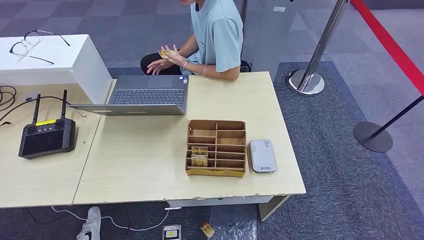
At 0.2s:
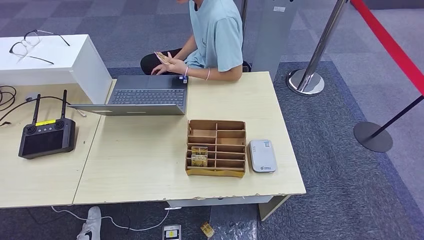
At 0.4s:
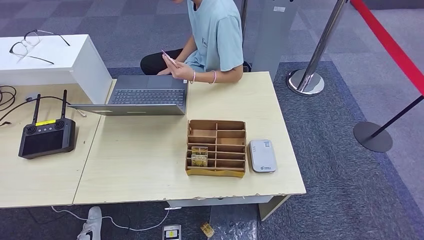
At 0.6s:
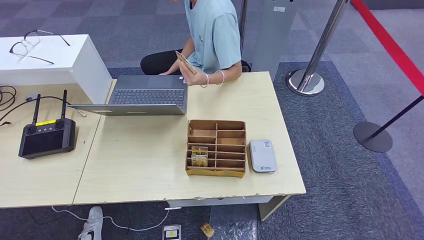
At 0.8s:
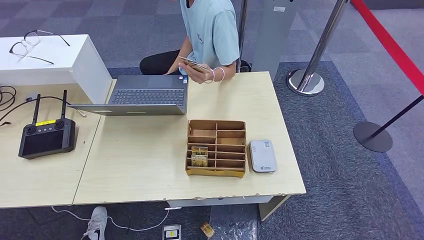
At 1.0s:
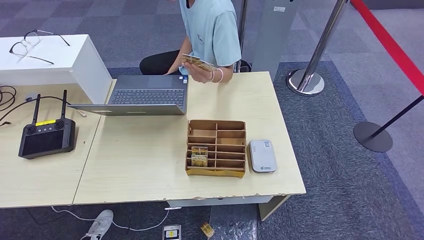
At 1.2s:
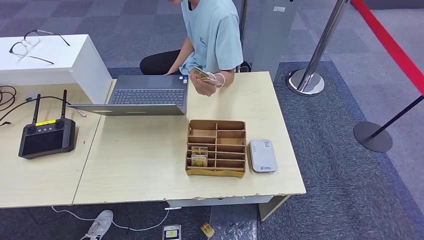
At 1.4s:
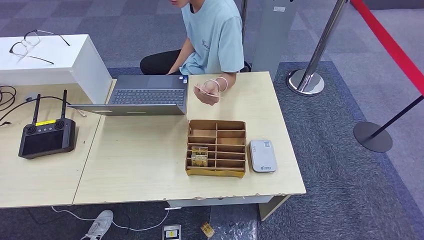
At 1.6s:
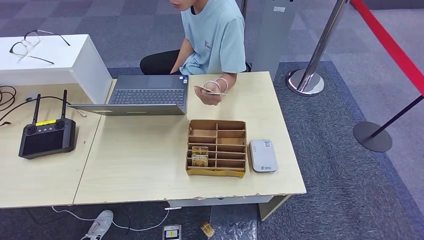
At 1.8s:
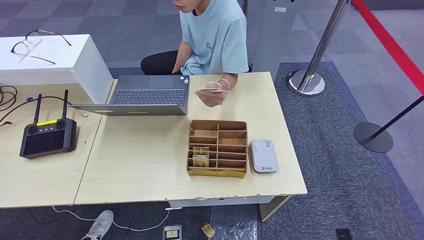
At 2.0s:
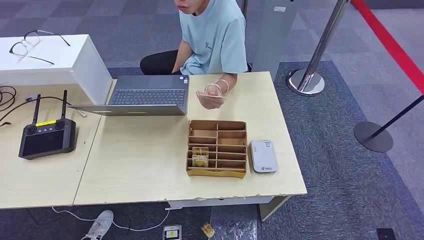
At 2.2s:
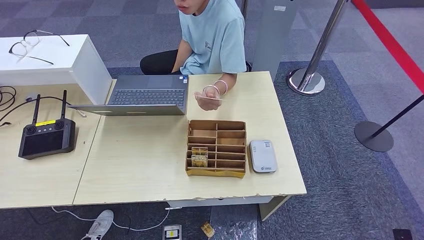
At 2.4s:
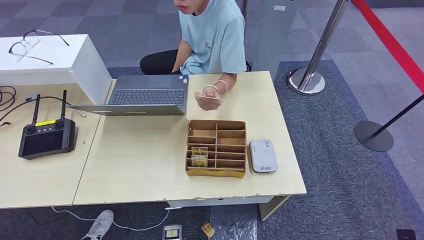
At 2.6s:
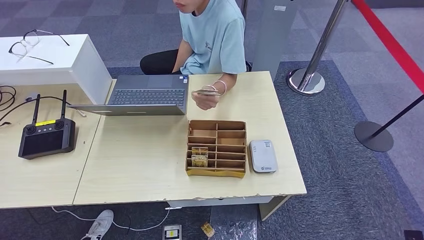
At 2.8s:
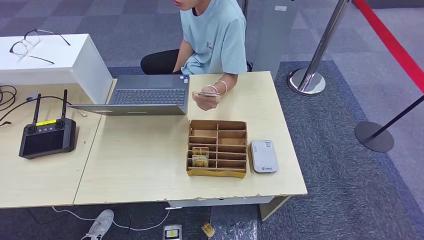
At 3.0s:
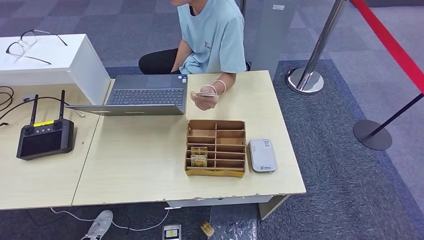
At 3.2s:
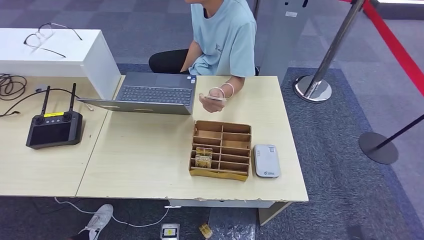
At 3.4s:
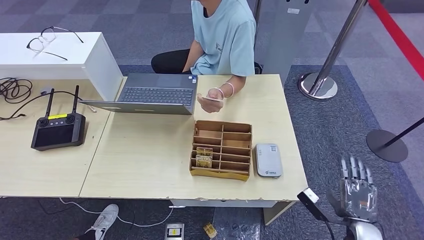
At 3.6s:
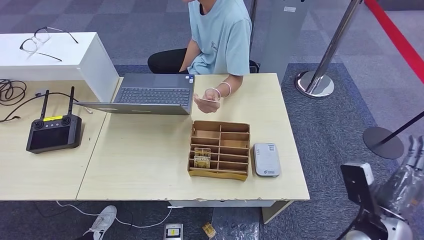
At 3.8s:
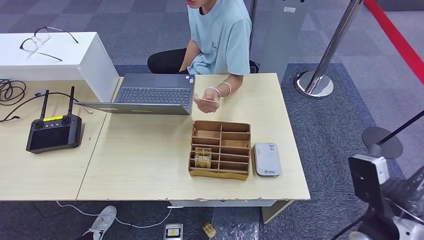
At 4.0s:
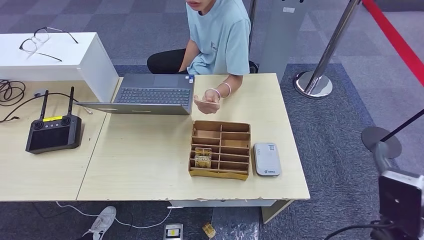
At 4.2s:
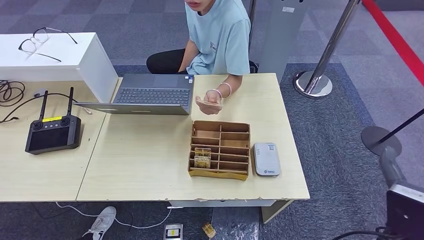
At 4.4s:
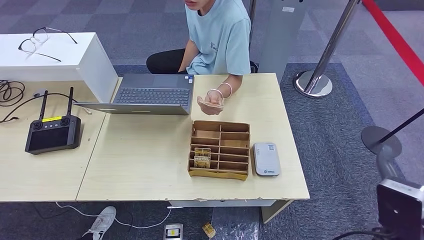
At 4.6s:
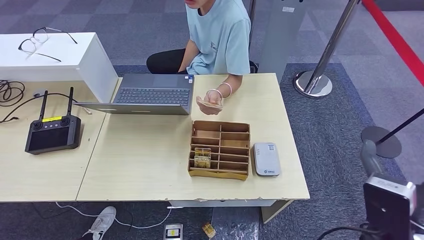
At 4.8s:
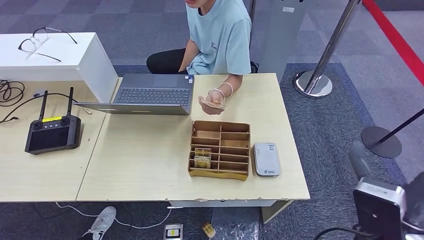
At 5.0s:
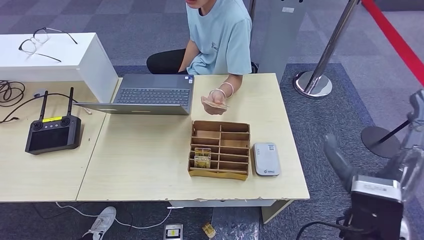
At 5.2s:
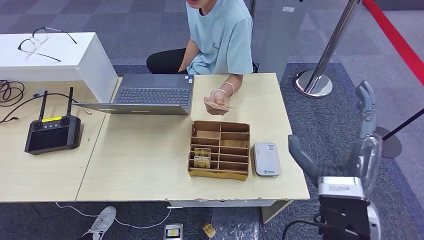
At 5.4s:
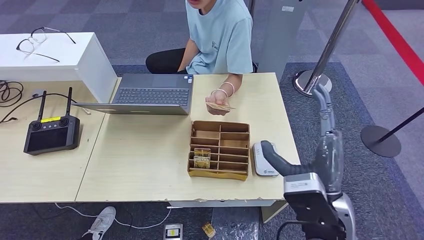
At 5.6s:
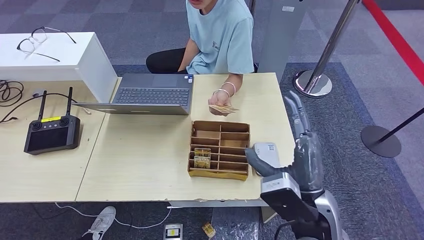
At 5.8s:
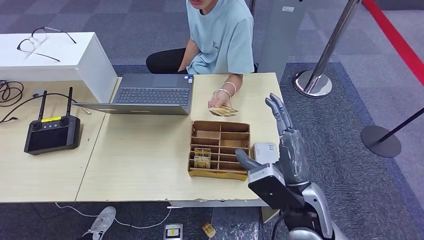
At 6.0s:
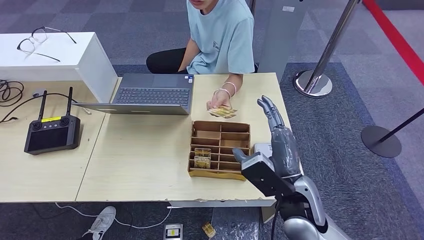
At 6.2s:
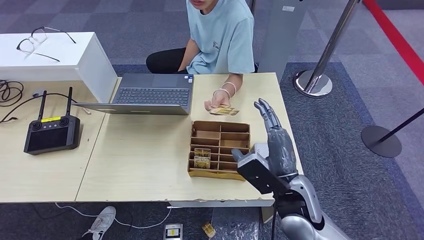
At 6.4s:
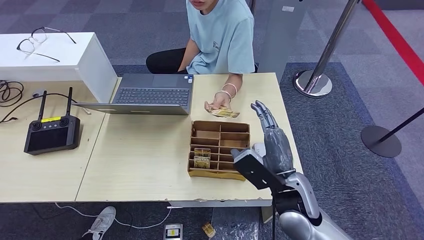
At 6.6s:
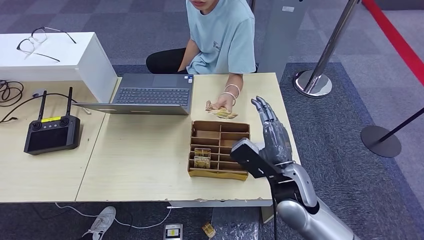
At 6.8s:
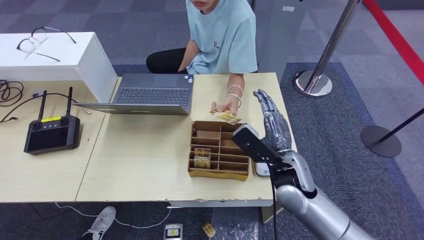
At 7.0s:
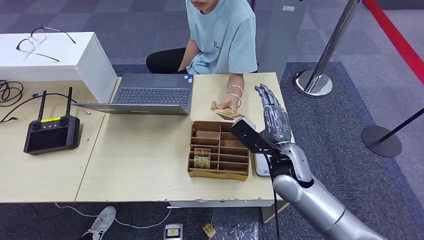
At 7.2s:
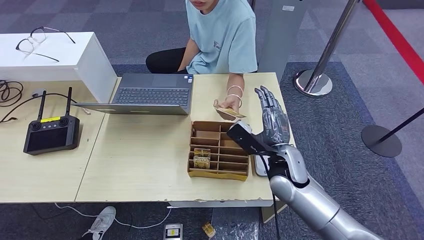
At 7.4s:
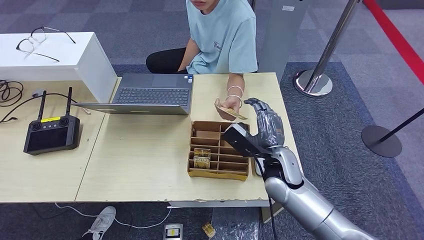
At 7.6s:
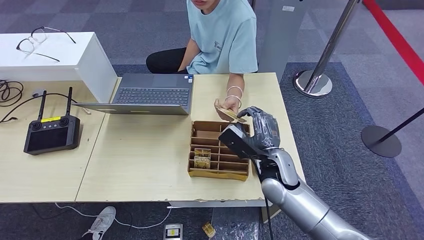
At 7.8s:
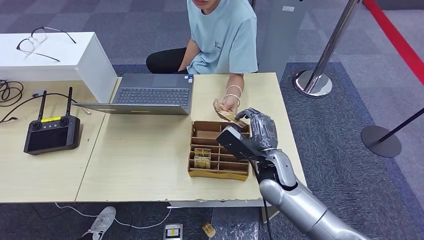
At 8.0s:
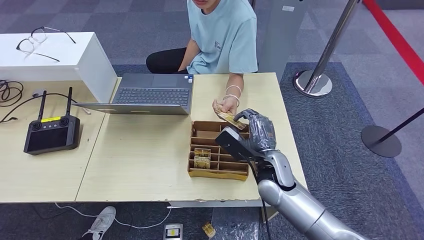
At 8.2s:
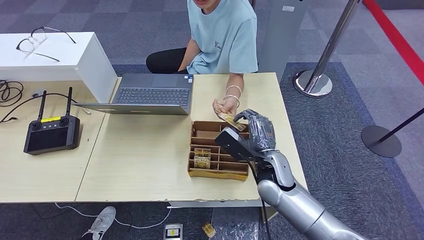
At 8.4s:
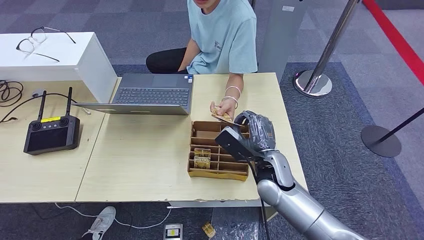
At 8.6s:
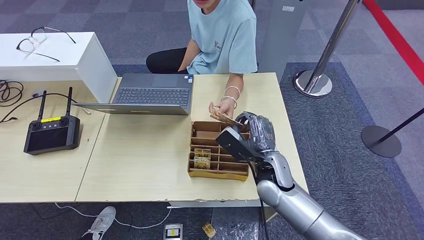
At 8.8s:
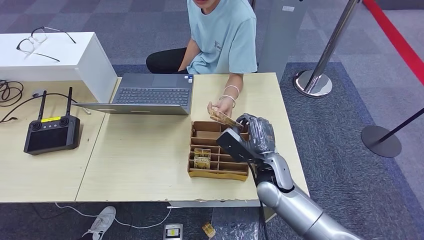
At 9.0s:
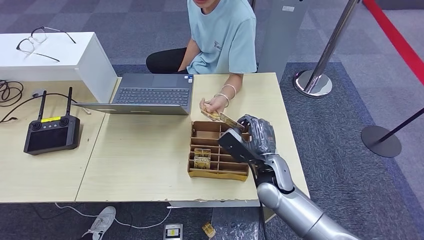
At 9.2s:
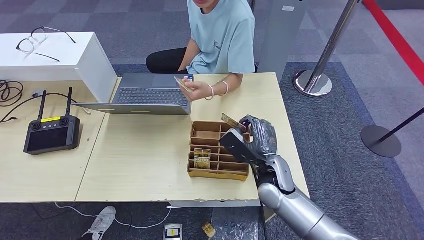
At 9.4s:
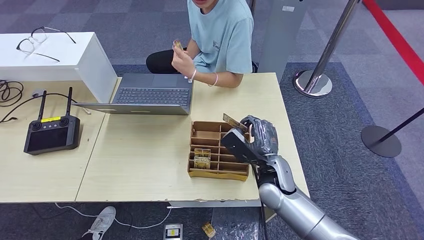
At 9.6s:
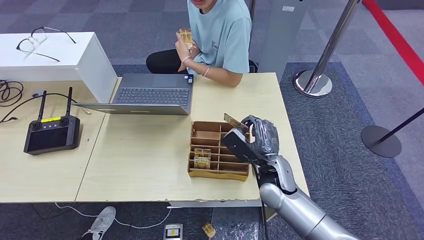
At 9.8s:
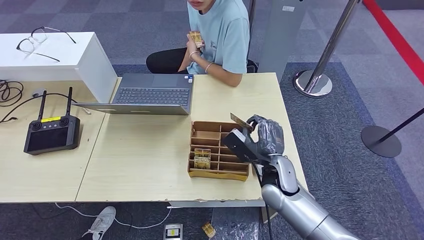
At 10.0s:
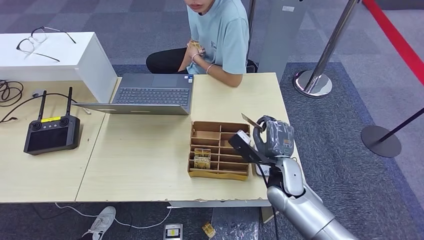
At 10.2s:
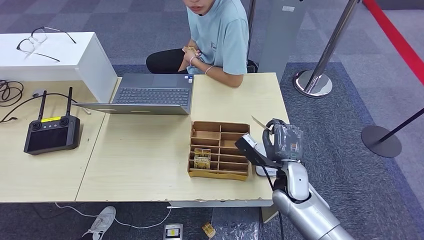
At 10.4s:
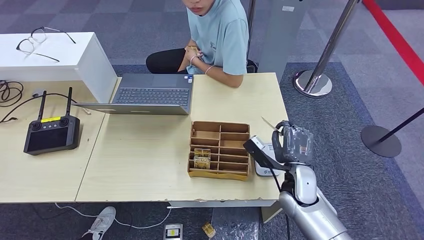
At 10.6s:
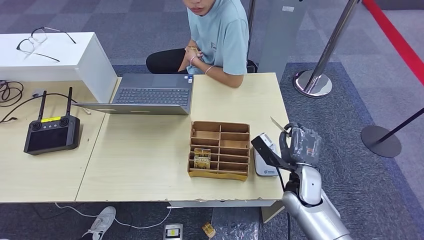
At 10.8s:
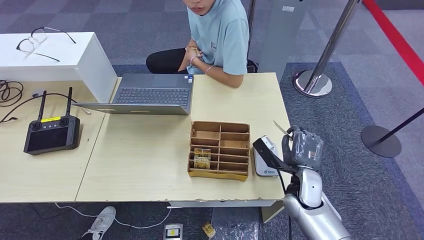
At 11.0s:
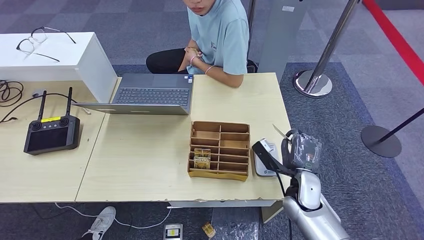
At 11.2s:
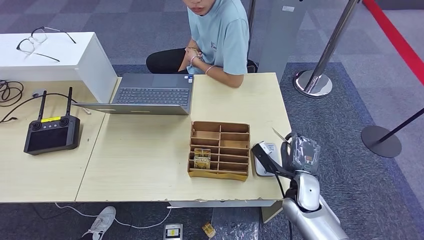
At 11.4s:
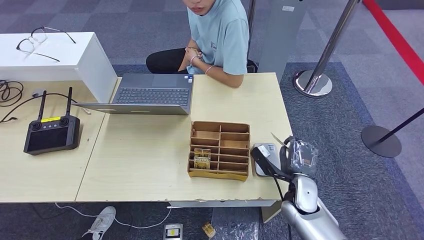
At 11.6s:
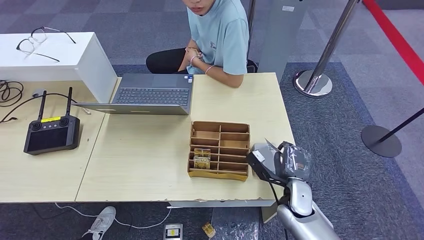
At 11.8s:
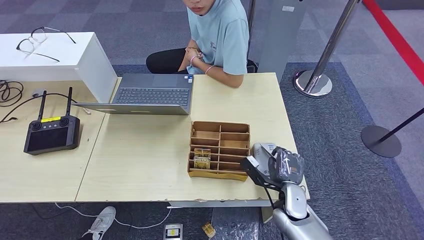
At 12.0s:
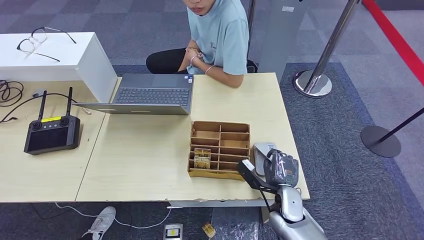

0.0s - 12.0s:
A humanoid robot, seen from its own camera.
Step, 0.0s - 9.6s: Take the ID card from the person's hand.
1.6s - 3.0s: The right hand travels to the right and upward by some 35 cm.
4.4s - 6.0s: The right hand travels to the left and forward by approximately 15 cm.
6.0s - 7.6s: The right hand shifts some 10 cm forward and downward.
7.6s - 9.0s: There are only small adjustments of the hands.
9.0s - 10.4s: The right hand shifts roughly 5 cm to the right.
10.4s - 12.0s: The right hand is displaced downward by approximately 10 cm.

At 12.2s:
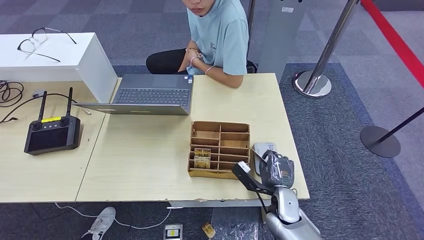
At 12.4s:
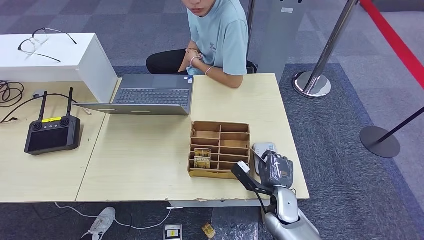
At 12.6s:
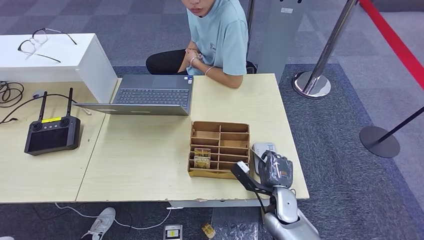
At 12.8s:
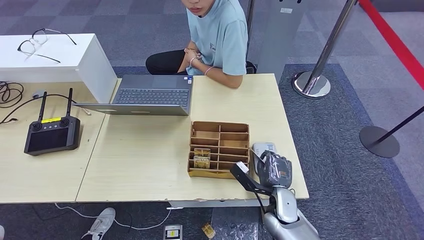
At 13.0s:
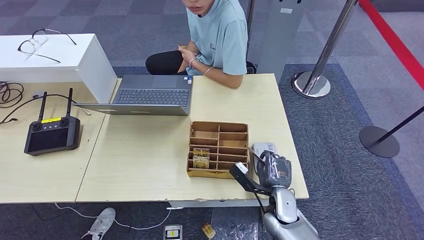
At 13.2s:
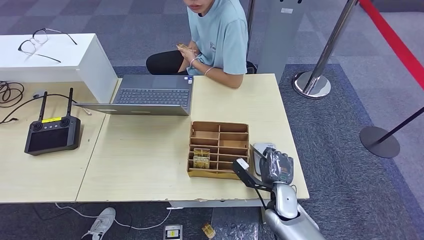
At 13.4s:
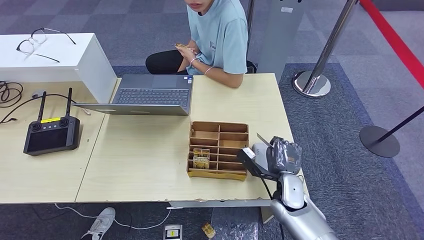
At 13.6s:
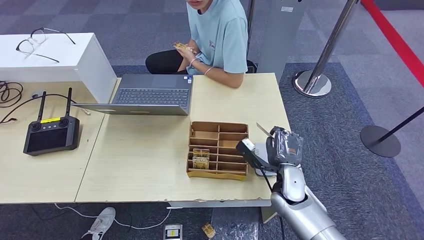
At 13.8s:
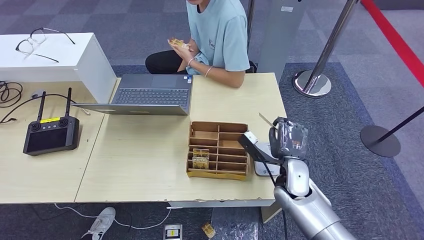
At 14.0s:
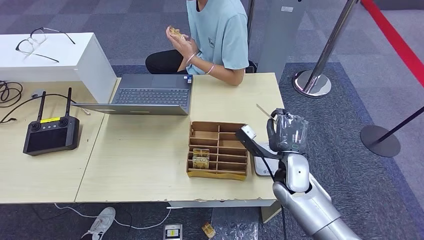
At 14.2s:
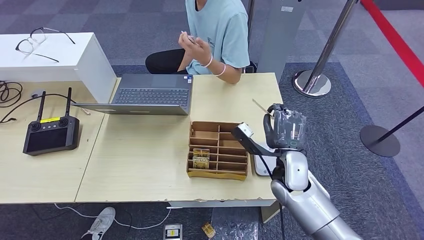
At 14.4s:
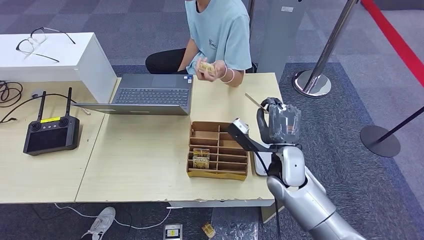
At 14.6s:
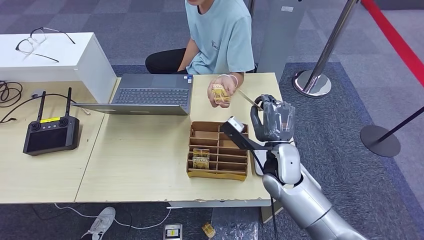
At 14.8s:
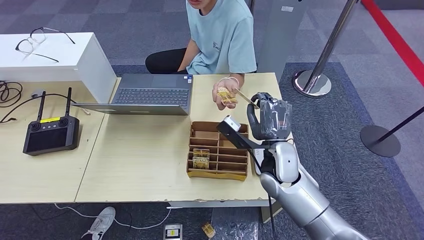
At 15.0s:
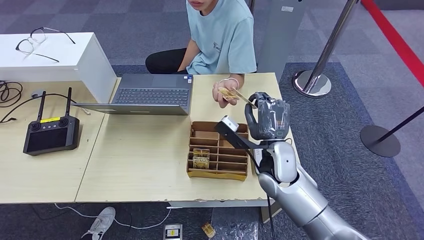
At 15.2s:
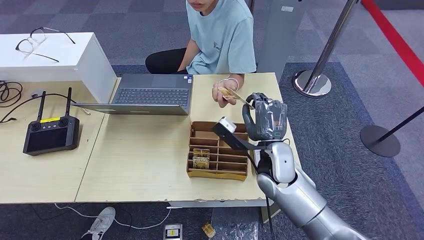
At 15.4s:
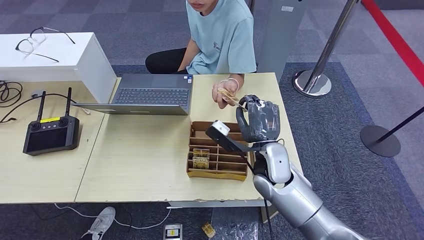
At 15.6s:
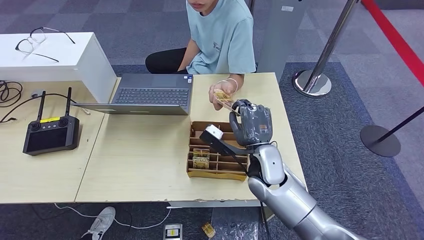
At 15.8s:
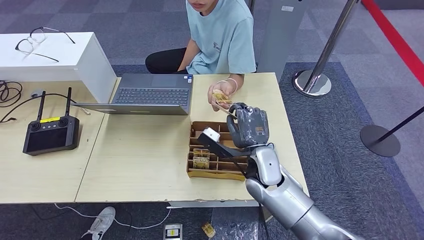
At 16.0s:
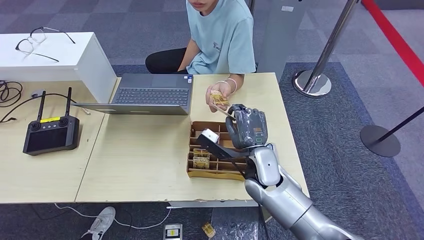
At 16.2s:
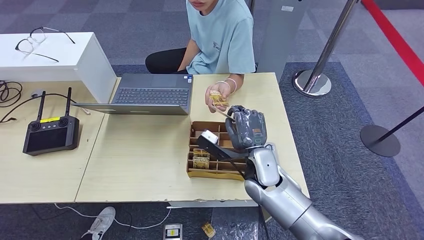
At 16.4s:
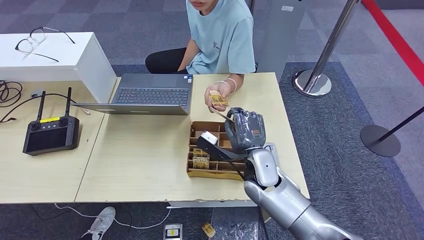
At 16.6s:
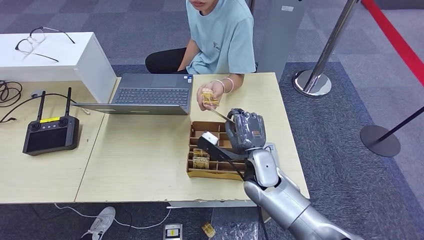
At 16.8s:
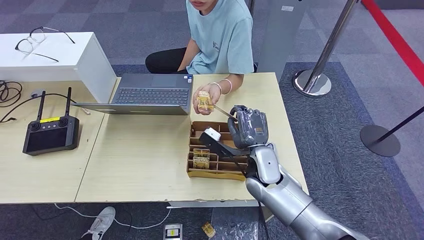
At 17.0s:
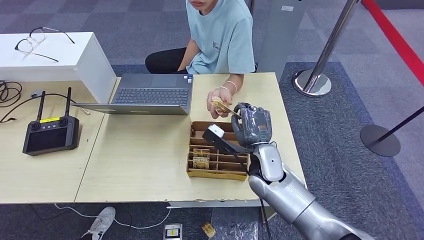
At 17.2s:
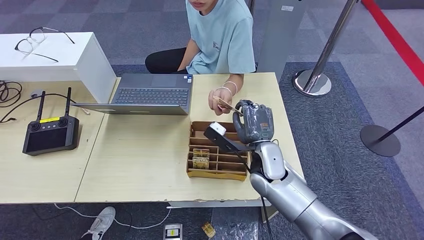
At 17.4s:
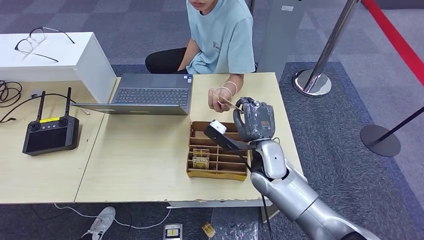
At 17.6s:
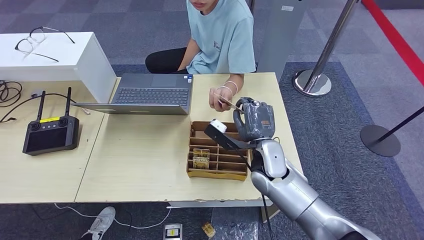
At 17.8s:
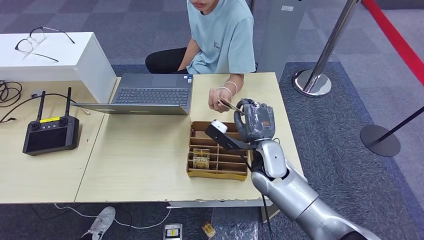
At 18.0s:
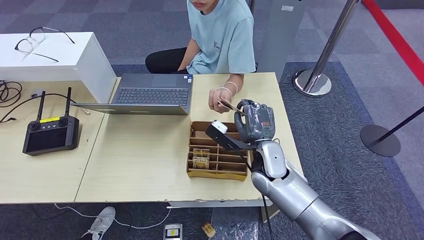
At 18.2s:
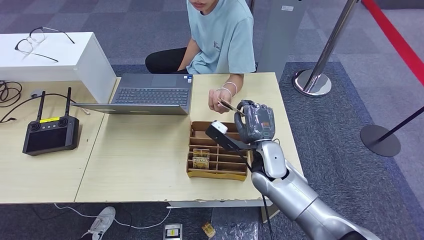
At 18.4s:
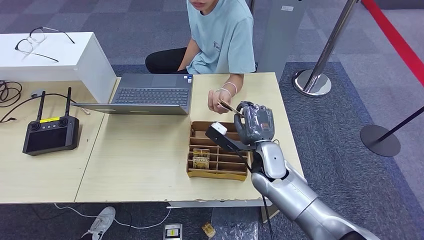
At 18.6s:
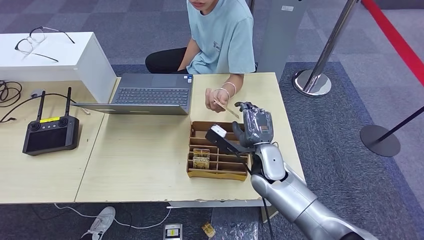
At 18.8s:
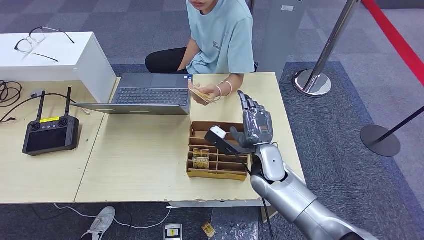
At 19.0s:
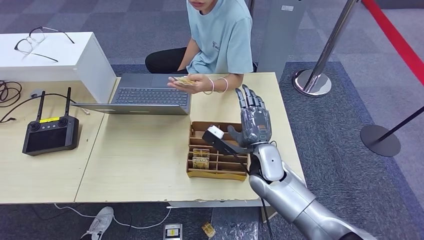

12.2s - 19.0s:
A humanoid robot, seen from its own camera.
12.2s - 13.6s: The right hand shifts about 5 cm upward.
13.6s - 15.0s: The right hand goes some 10 cm upward and to the left.
15.0s - 19.0s: The hands stay close to where they were, moving slightly.
